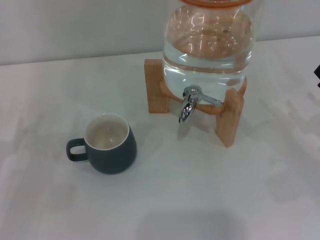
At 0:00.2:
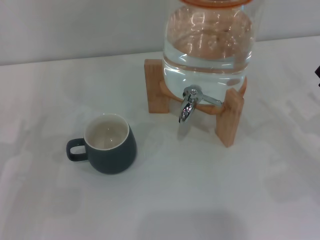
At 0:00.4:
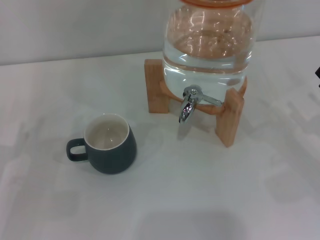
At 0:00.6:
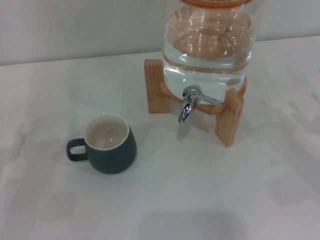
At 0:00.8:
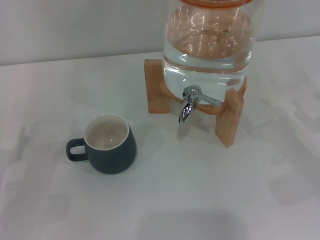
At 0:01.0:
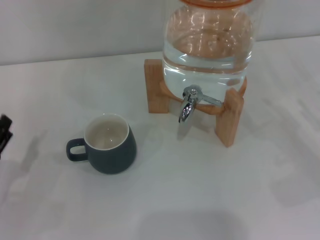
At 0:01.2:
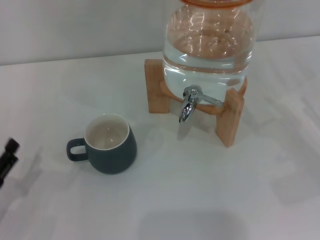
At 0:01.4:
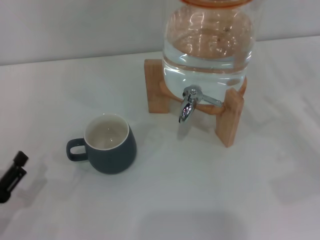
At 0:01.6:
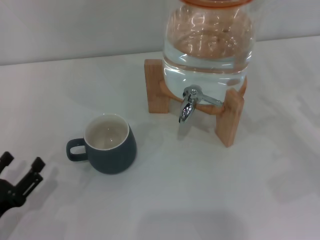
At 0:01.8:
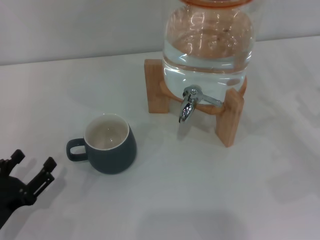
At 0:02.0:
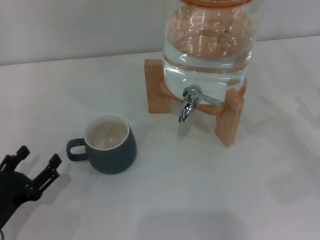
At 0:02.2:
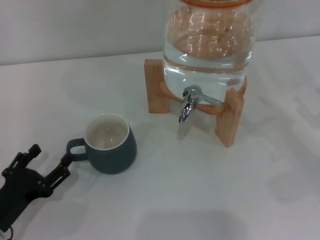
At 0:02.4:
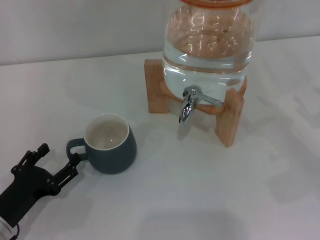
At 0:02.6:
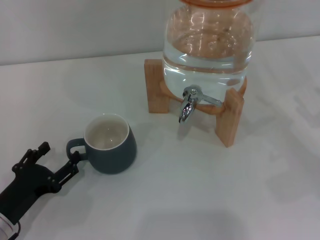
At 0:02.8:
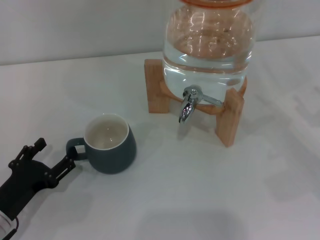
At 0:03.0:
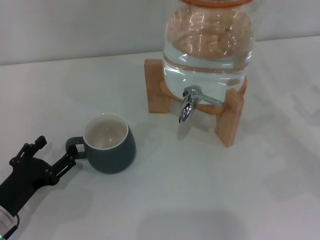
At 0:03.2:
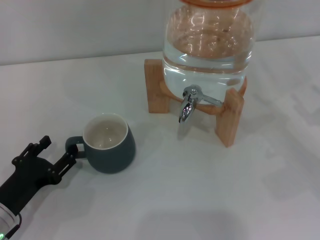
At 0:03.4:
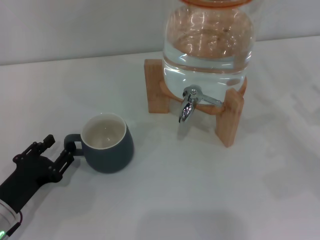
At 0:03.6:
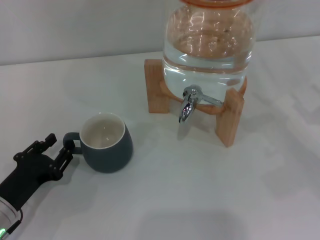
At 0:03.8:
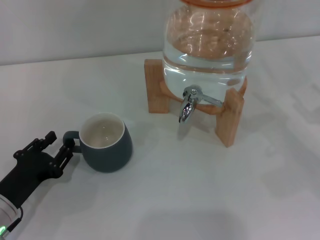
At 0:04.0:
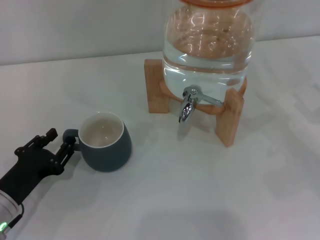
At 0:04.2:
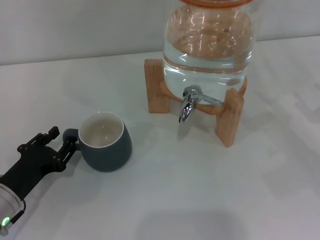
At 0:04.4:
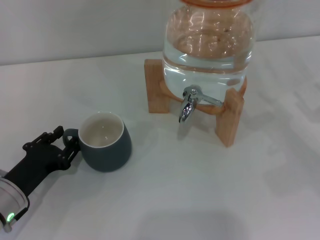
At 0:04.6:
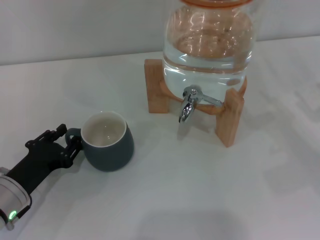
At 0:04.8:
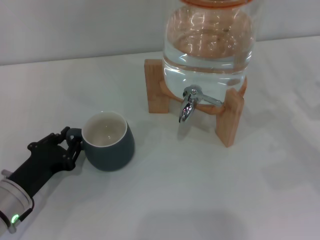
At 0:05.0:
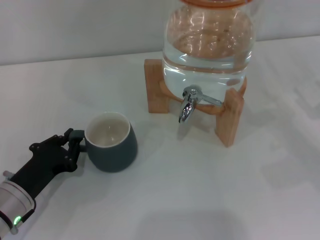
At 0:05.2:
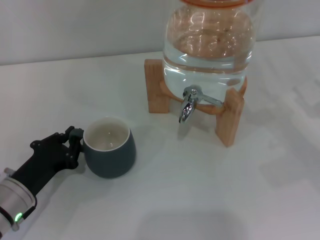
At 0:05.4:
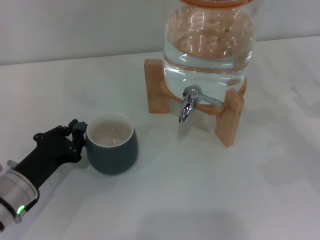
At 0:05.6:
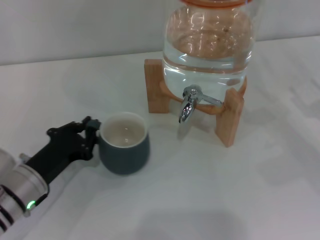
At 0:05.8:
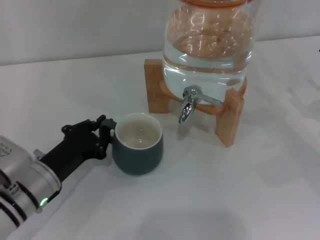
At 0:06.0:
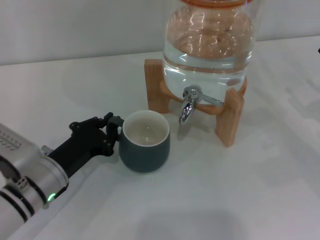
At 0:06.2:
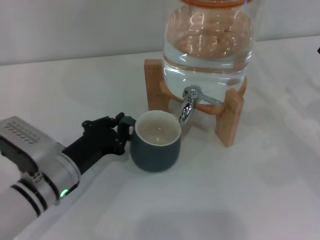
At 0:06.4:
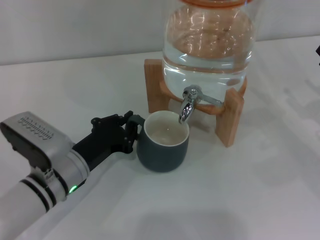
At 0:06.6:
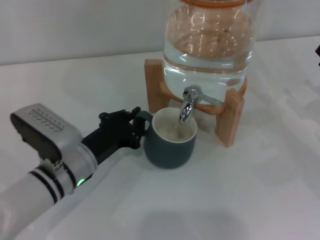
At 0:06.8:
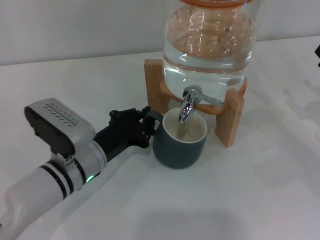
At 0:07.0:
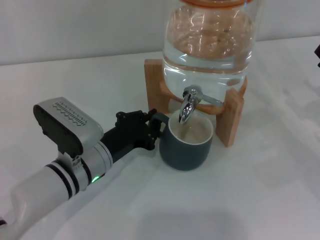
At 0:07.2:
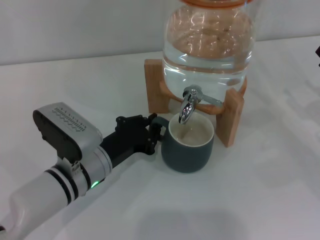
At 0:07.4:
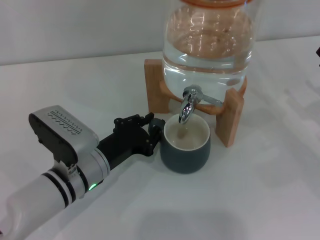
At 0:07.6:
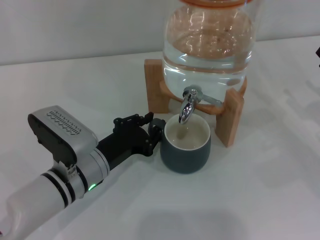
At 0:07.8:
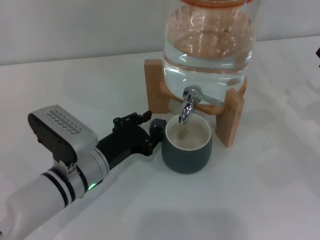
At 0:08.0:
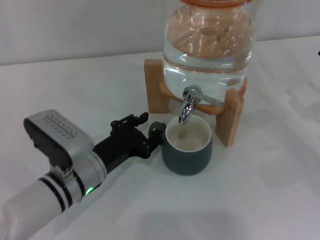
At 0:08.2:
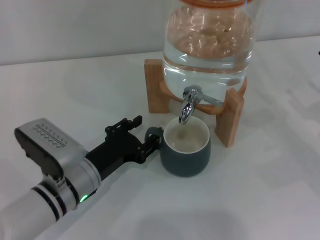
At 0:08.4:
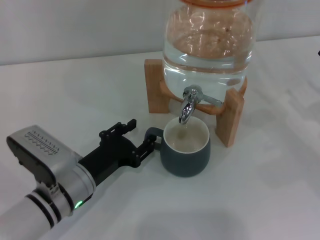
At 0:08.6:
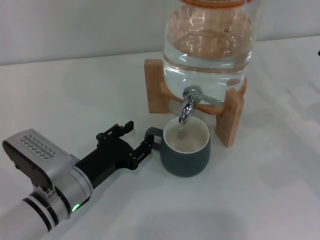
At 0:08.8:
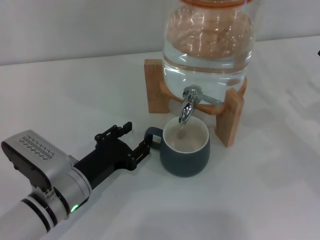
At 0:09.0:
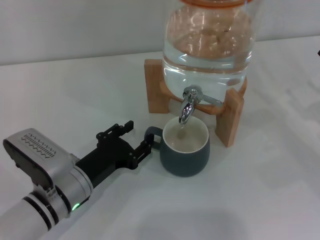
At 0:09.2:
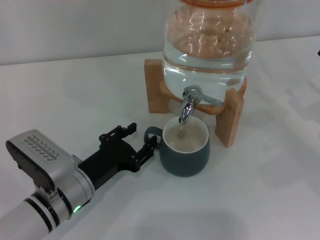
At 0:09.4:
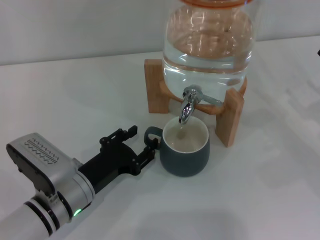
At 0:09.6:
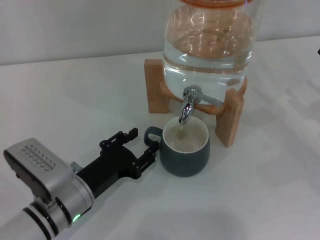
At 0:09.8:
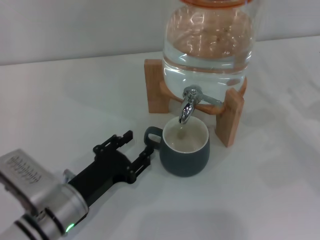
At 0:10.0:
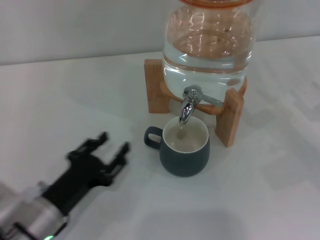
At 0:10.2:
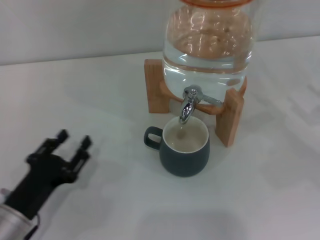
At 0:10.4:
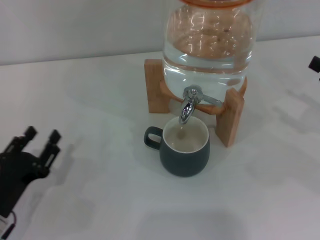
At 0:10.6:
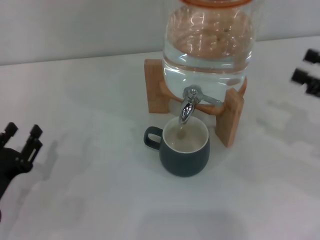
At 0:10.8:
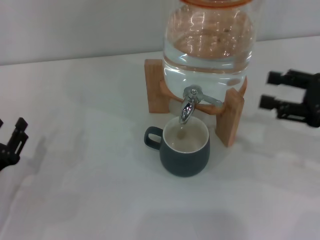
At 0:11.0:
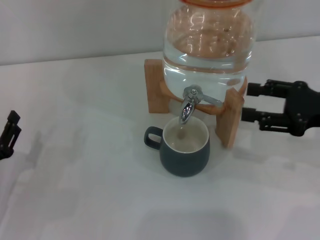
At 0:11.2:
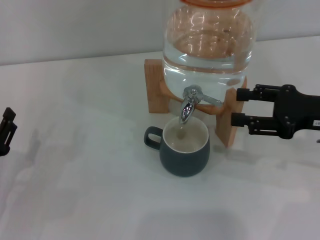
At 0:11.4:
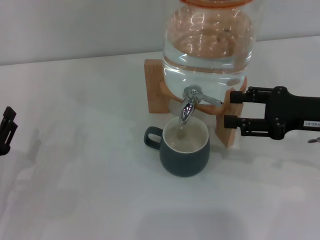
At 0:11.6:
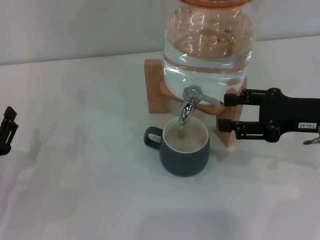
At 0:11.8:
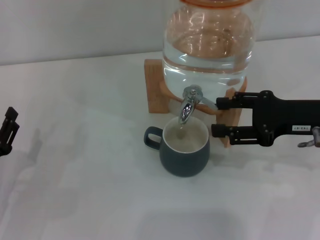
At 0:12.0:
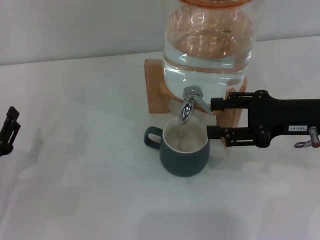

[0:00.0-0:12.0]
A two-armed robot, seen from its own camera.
Task of the whole recording: the left gripper pick up the black cup and place it horizontally under the faucet, the right gripper turn on the faucet to fill the cup, and then turn off the faucet.
Step, 0:00.0 to 0:09.4: Move the cup beneath the water dispenser nozzle with the left gripper.
0:00.0 to 0:01.6: The left gripper shifts roughly 5 cm backward.
0:01.6 to 0:03.0: The left gripper shifts by about 5 cm.
0:03.0 to 0:04.4: The left gripper closes up.
0:04.4 to 0:06.0: The left gripper travels to the right by about 5 cm, and closes its fingers.
0:06.0 to 0:07.6: The left gripper heads to the right, covering approximately 5 cm.
0:07.6 to 0:09.0: The left gripper opens its fingers.
0:09.0 to 0:10.4: The left gripper is displaced to the left and backward by about 10 cm; the right gripper changes place by about 5 cm.
0:10.4 to 0:12.0: The right gripper heads to the left, covering approximately 10 cm.

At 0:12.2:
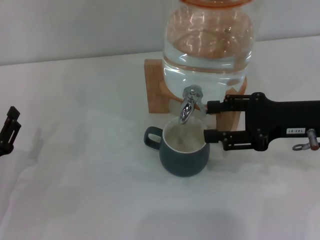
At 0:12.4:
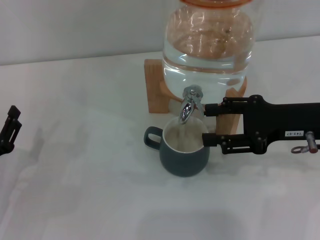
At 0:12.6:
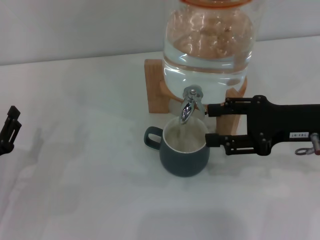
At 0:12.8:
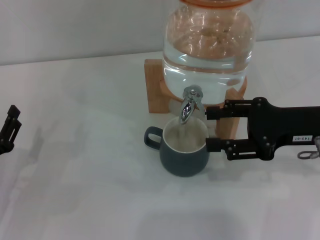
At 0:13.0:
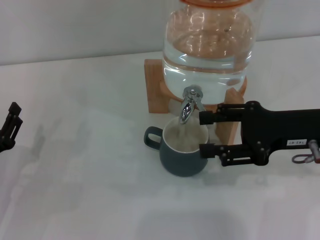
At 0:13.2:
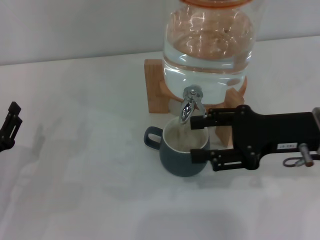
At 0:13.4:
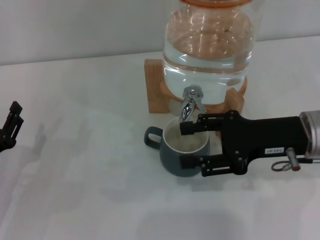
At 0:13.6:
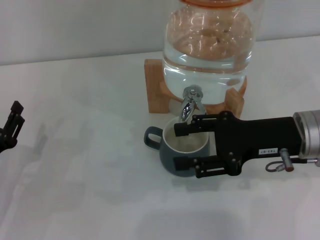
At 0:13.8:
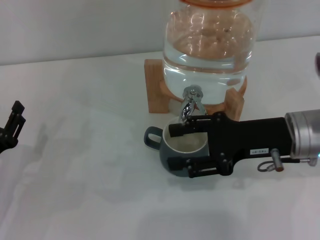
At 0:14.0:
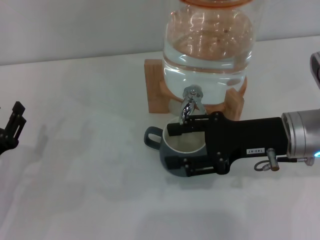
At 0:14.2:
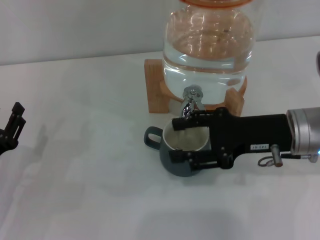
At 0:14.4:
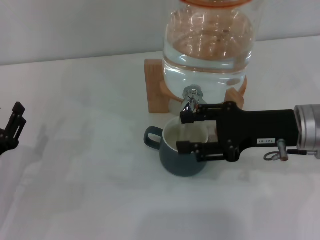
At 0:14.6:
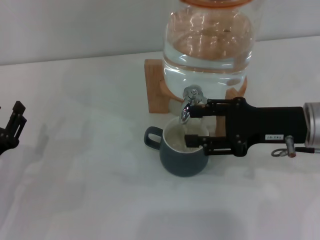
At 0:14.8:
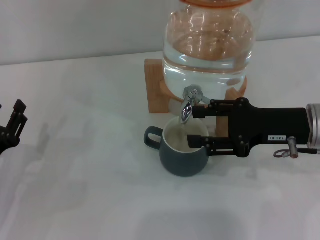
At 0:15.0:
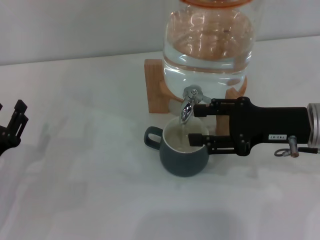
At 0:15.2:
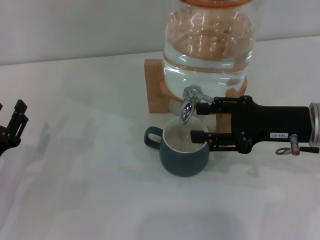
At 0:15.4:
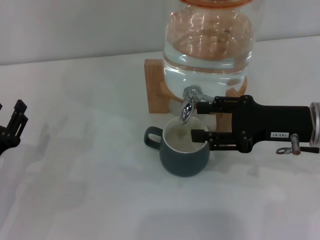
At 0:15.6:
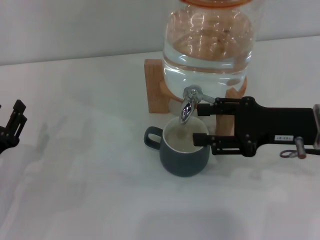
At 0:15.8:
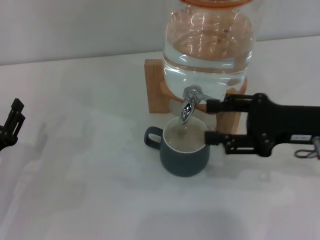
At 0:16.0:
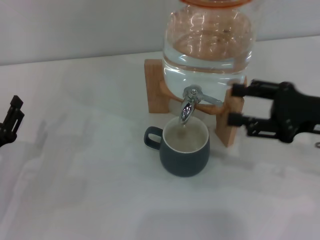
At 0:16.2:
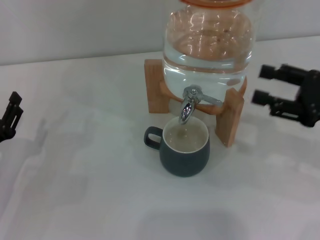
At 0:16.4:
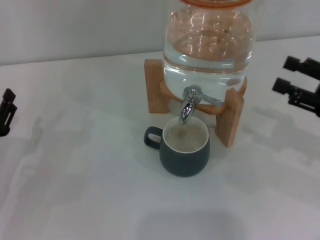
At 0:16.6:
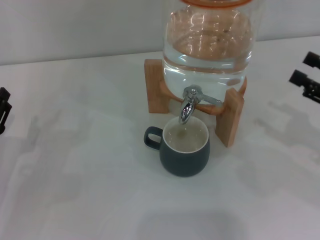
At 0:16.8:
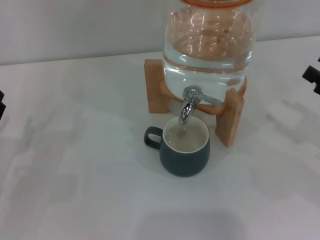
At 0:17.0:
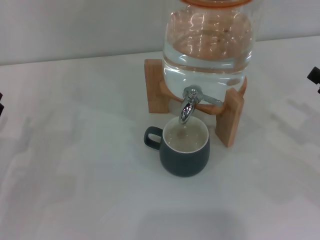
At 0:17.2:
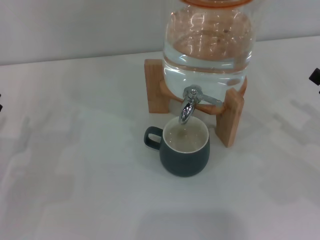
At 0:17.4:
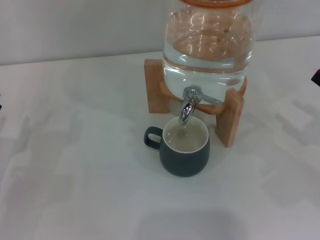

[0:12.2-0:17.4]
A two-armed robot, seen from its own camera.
Task of the whole recording: the left gripper pick up the black cup and place it horizontally under the faucet, the right gripper turn on the faucet to fill the cup, and then turn off the faucet.
Step, 0:13.2 to 0:15.8: Close the dispenser valve with the right gripper.
0:12.2 to 0:14.0: The right gripper heads to the left, covering roughly 5 cm.
0:14.0 to 0:15.6: There are only small adjustments of the grippers.
0:15.6 to 0:17.4: The right gripper goes roughly 15 cm to the right and backward.
